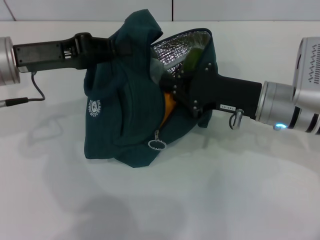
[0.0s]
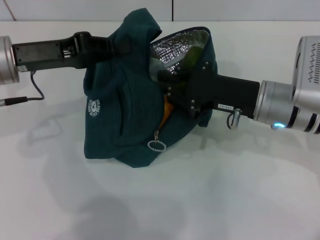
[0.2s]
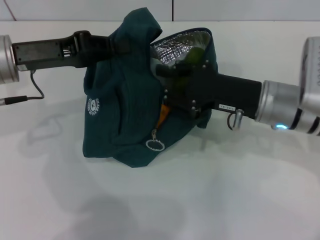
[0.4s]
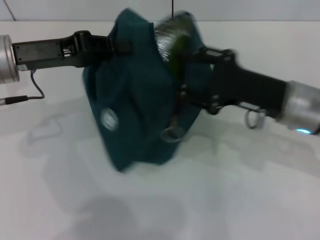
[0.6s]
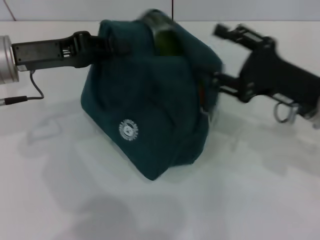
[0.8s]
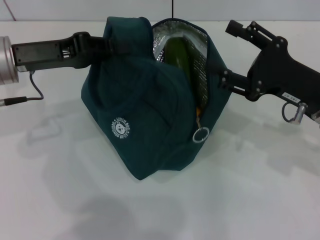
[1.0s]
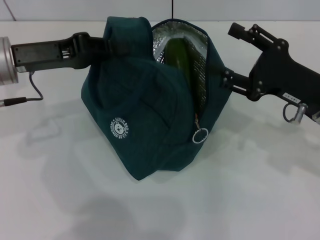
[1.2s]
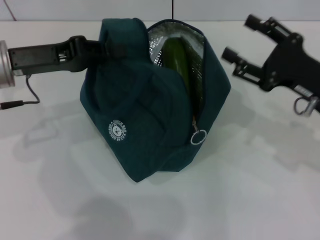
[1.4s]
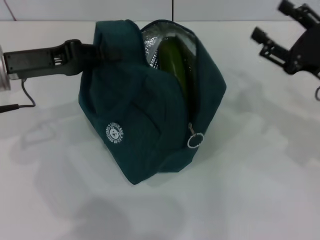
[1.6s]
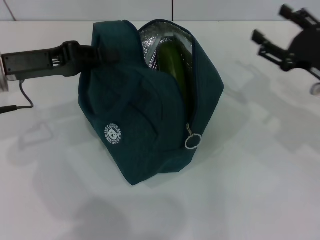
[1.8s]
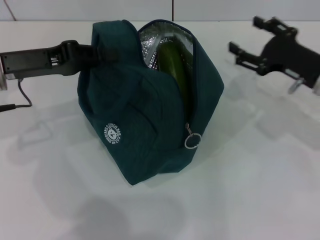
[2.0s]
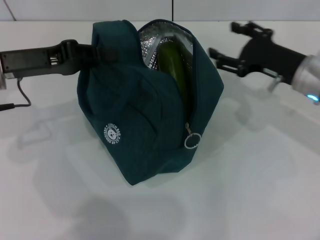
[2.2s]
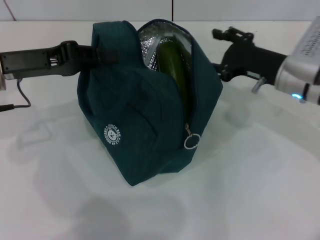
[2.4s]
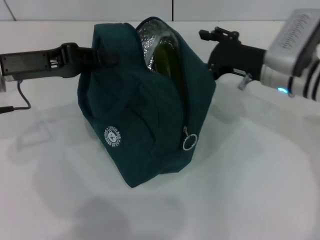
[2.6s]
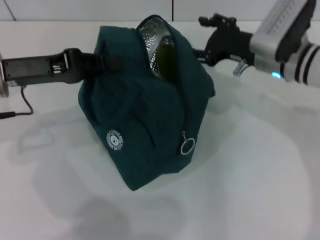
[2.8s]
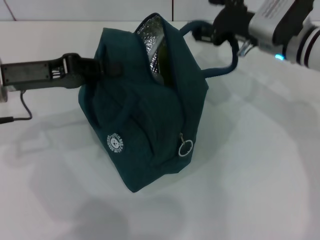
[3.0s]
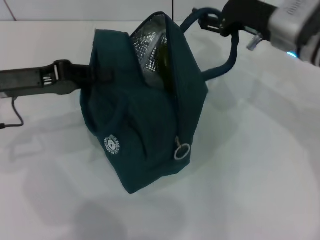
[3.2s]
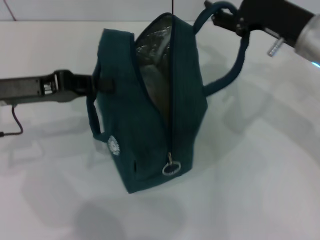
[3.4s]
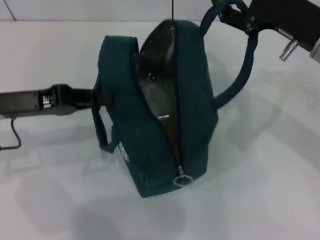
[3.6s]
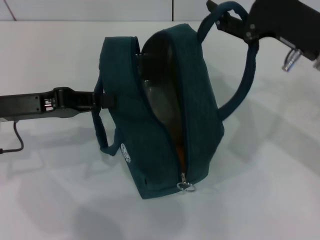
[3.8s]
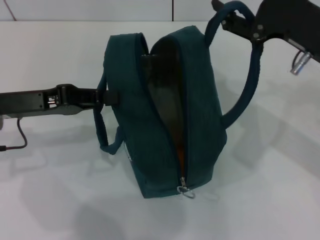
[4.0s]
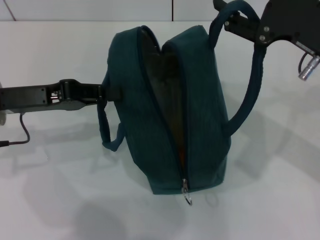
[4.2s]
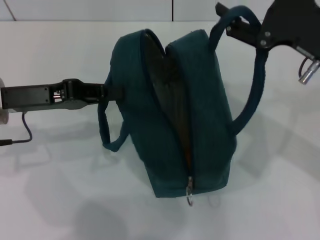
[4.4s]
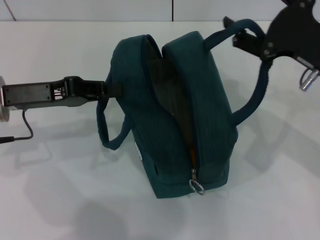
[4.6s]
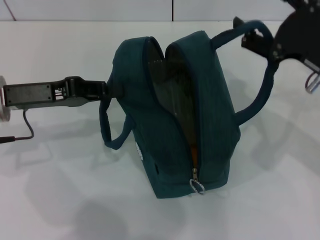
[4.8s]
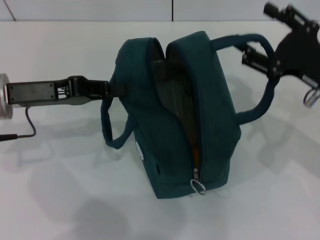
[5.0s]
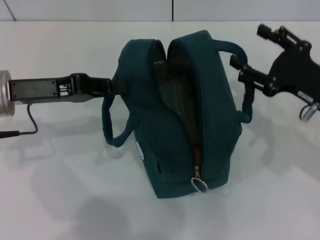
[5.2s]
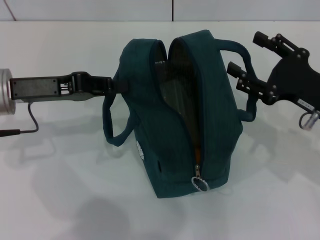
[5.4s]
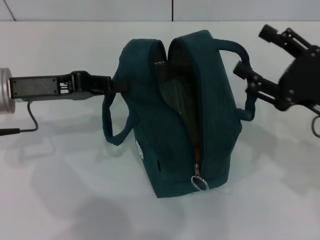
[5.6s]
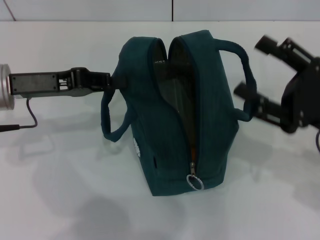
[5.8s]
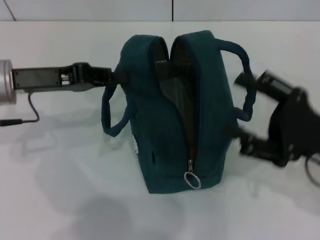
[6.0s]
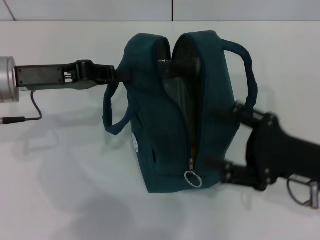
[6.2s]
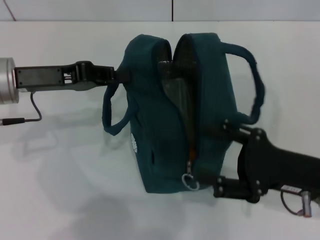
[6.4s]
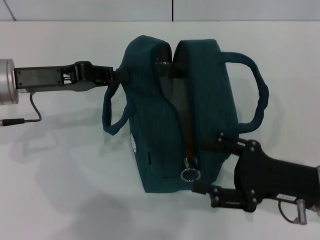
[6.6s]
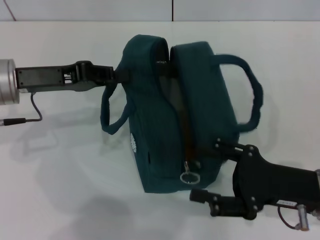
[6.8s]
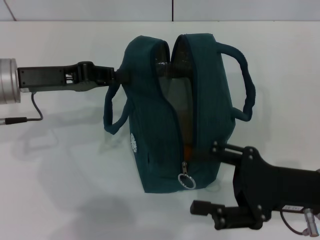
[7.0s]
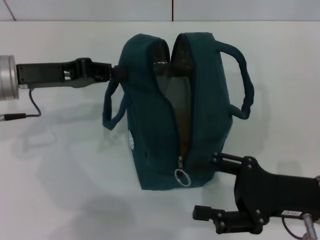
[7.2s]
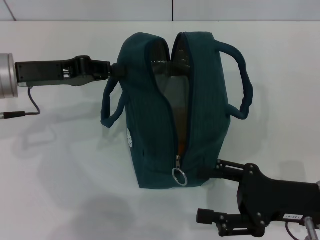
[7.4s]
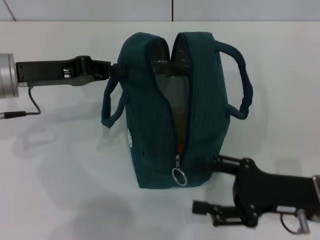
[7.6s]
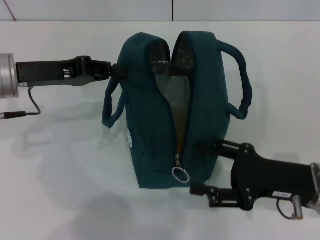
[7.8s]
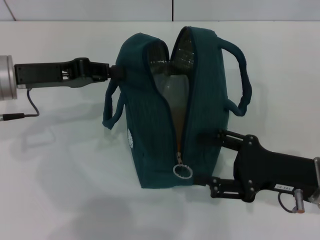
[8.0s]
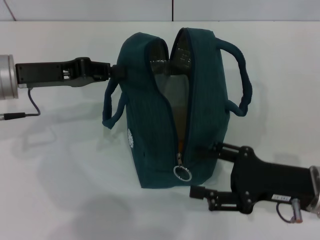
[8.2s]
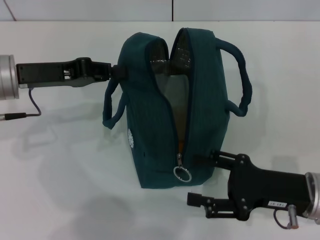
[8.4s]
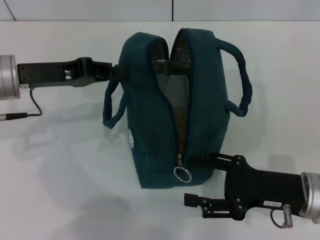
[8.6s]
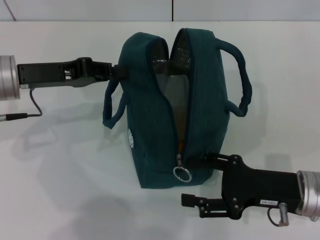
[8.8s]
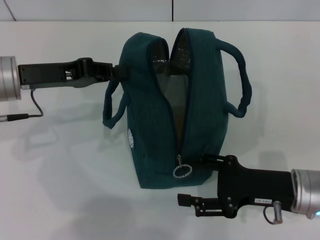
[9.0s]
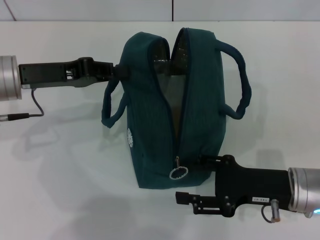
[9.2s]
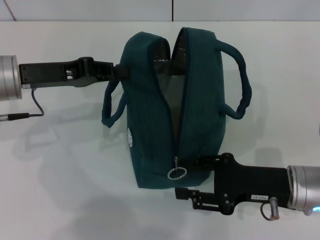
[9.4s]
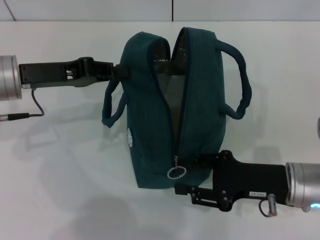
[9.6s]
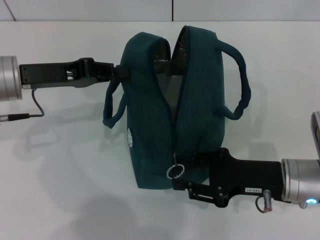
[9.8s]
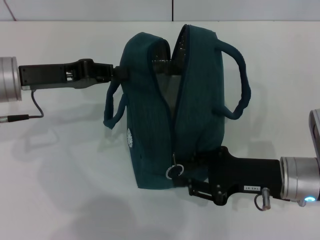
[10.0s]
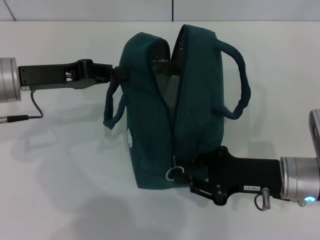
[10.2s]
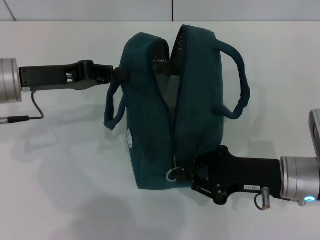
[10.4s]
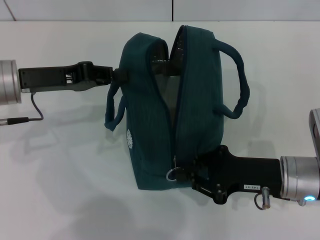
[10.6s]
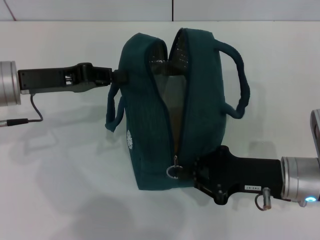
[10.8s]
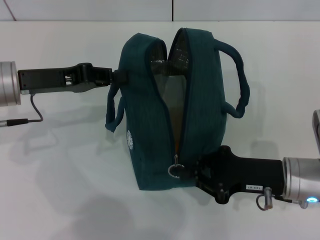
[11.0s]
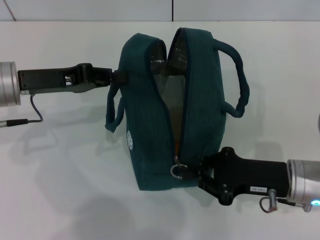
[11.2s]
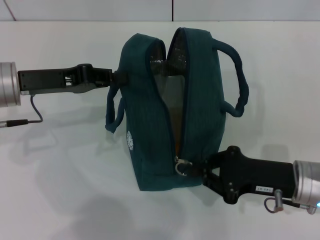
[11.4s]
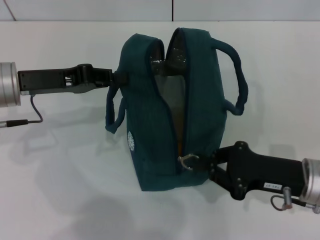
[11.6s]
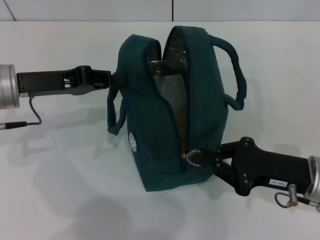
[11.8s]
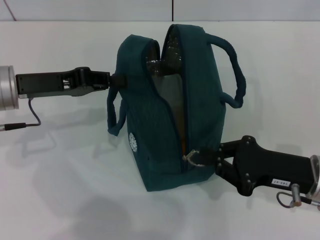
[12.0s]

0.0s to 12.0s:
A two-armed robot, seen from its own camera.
Step, 0.4s to 5.2s: Hold the lunch bag with your right hand.
0.0s to 1.6s: The right gripper travels to the right by approximately 10 cm, and opens up.
1.6s to 3.0s: The right gripper moves forward and to the left, some 15 cm.
3.0s to 4.4s: The right gripper heads backward and upward, covering some 15 cm.
4.4s to 6.0s: The right gripper is displaced downward and backward by roughly 10 cm.
6.0s to 7.6s: The right gripper is displaced downward by about 5 cm.
7.6s to 9.0s: There are only small adjustments of the grippers.
9.0s to 10.4s: The right gripper closes.
10.4s to 12.0s: The grippers make only small movements.

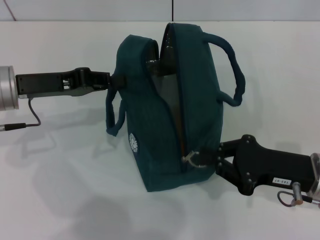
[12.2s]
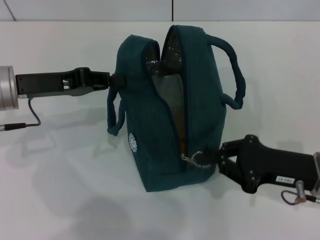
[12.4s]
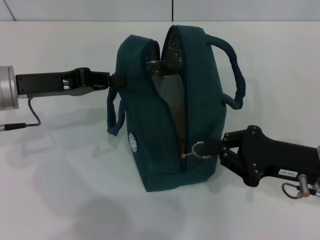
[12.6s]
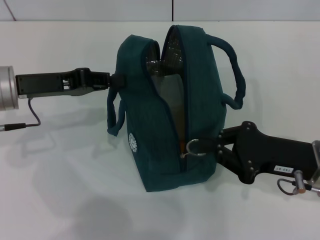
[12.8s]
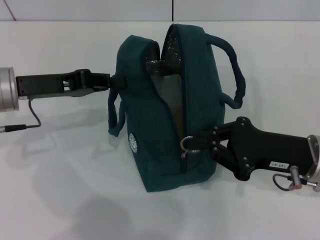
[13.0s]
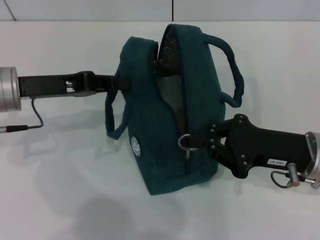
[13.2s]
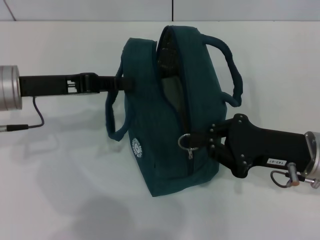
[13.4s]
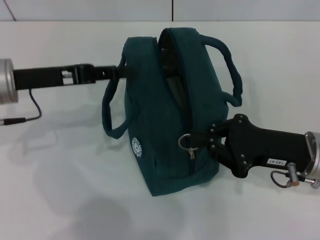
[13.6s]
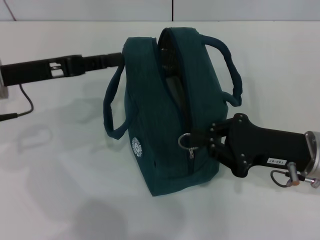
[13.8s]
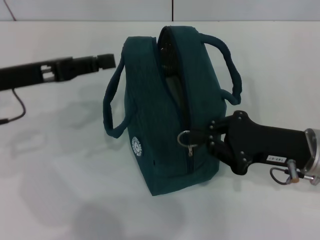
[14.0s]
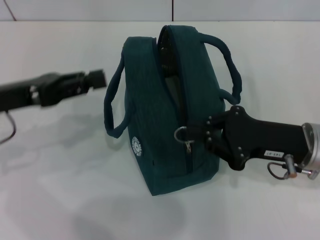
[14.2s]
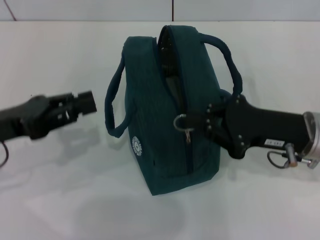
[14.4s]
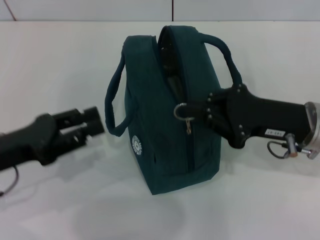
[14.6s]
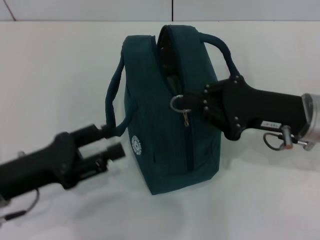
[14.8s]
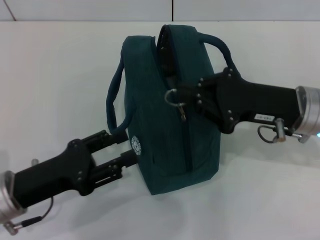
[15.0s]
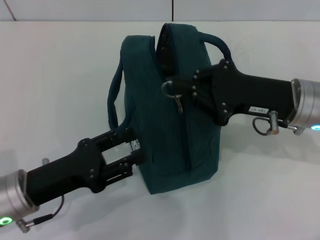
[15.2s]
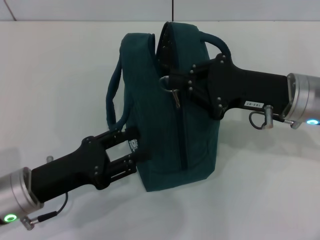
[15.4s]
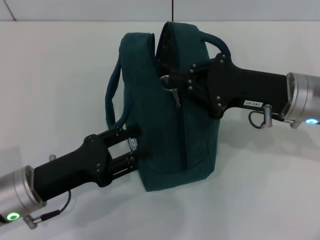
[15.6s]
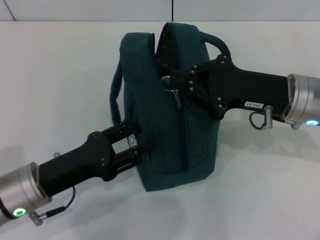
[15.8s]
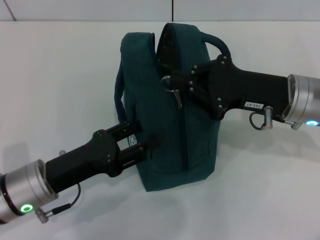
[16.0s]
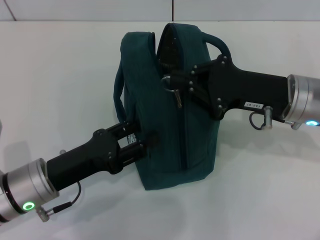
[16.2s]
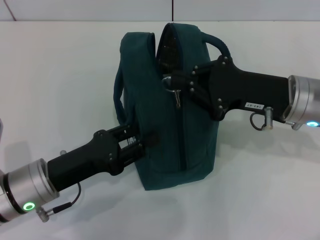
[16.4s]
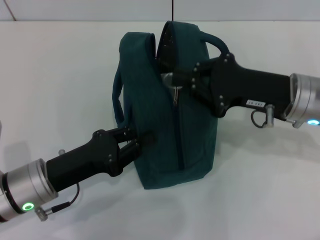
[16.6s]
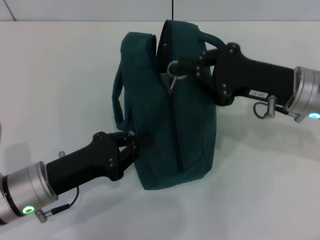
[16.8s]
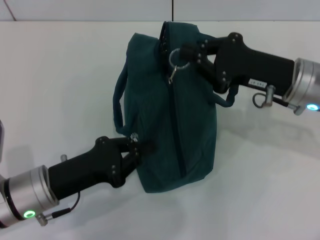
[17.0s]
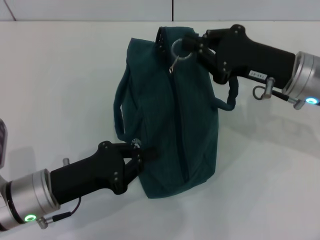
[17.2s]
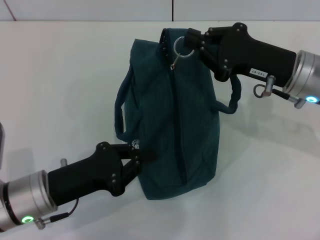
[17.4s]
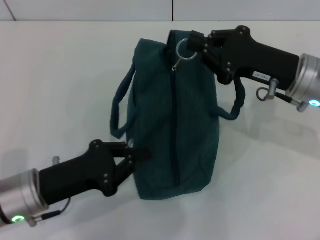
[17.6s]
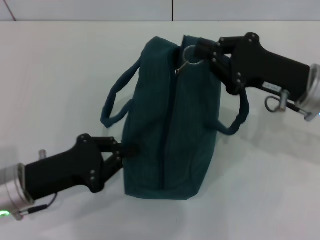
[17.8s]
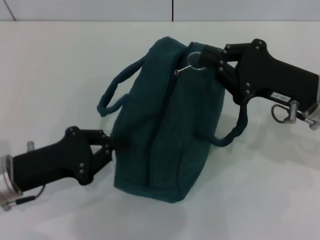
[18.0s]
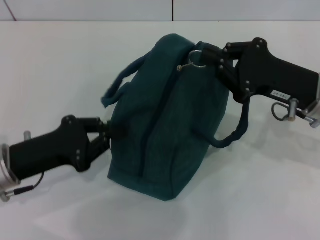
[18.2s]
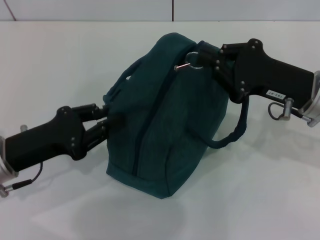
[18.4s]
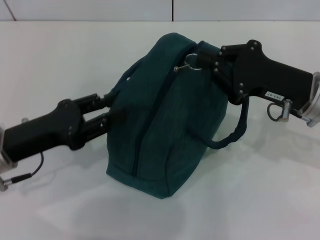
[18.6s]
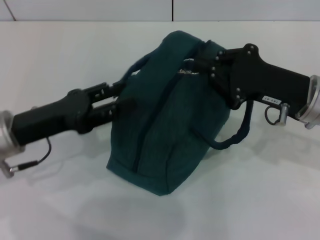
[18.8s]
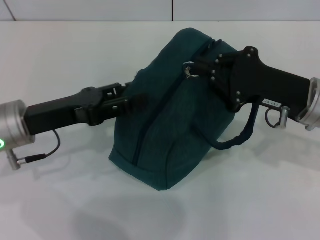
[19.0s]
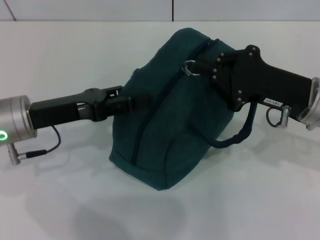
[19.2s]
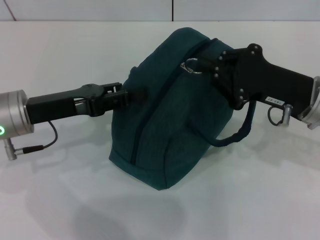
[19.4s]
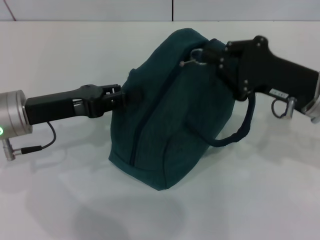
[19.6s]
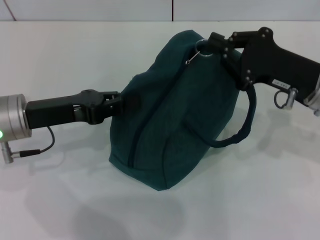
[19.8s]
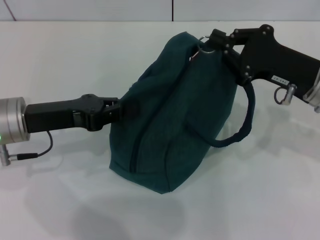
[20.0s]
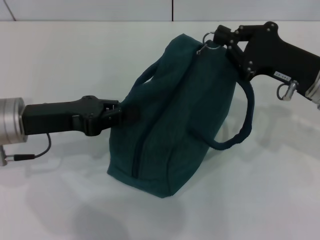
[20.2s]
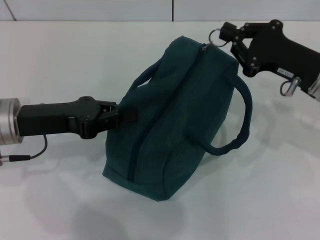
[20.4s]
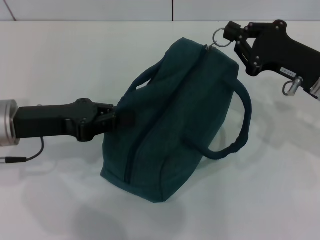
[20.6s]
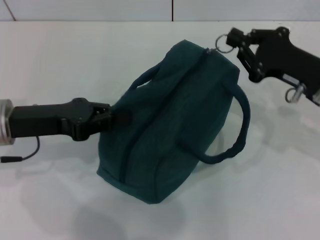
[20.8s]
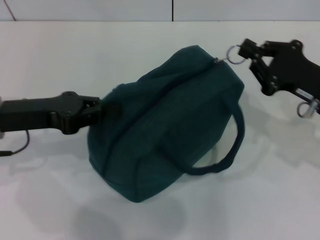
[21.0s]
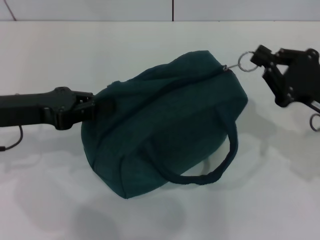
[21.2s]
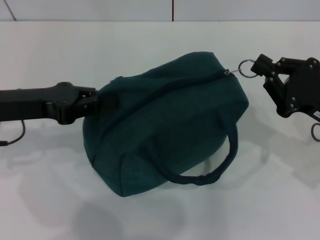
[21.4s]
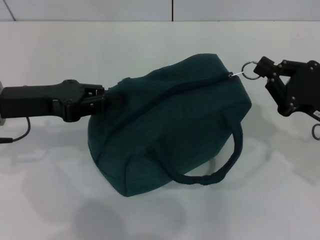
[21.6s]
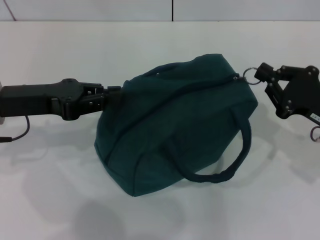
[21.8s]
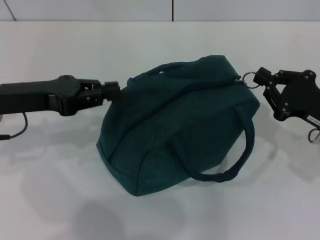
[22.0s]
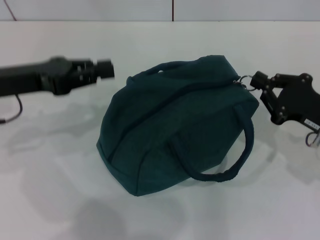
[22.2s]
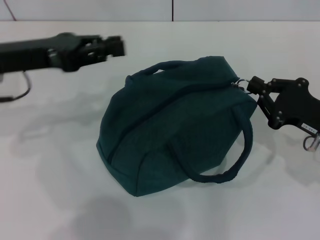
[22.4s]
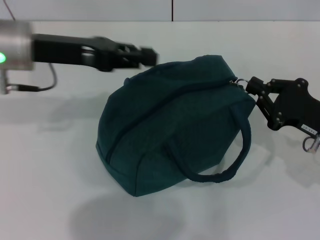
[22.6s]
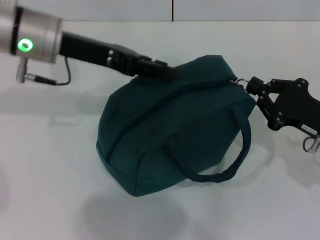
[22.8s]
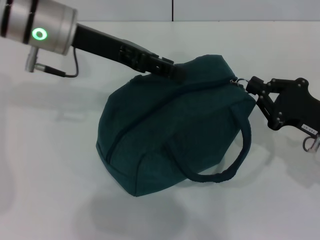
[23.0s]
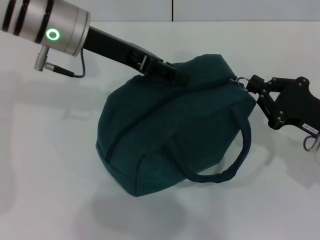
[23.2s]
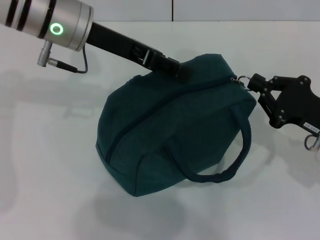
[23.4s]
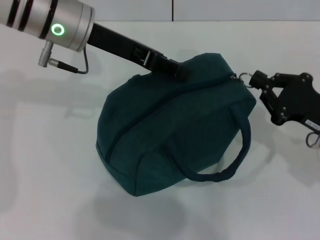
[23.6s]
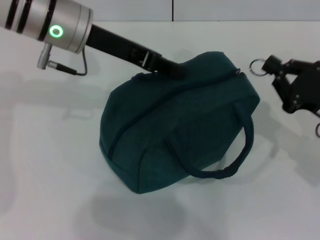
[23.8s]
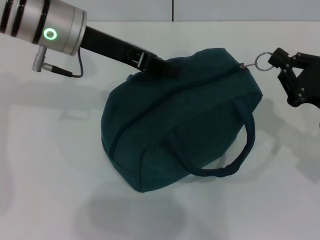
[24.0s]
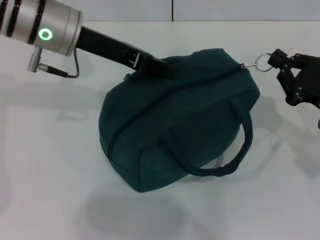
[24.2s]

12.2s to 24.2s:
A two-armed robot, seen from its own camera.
12.2s to 13.8s: The grippers move only a little.
13.8s to 15.2s: The left gripper heads backward and downward, covering about 15 cm, and opens its fingers; the right gripper shifts by approximately 5 cm.
15.2s to 16.6s: The grippers move only a little.
16.6s to 18.2s: The left gripper shifts by approximately 5 cm, and closes.
18.2s to 19.8s: The left gripper is displaced forward by roughly 5 cm, and opens, then closes once more.
19.8s to 21.2s: The right gripper moves some 5 cm.
21.2s to 22.6s: The left gripper shifts about 10 cm forward, to the right and upward.
22.6s to 24.2s: The left gripper shifts roughly 5 cm to the right, and opens and closes again.
